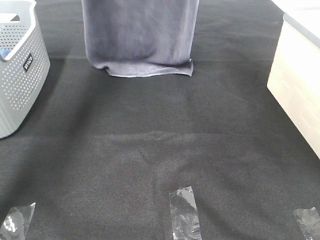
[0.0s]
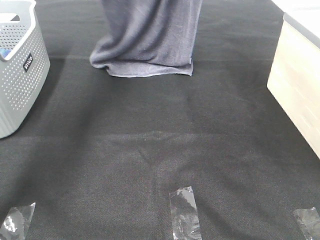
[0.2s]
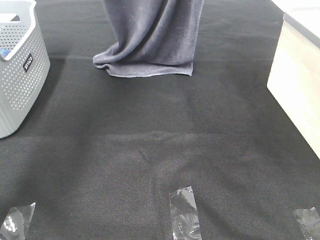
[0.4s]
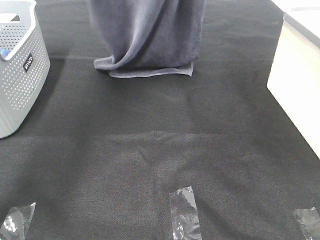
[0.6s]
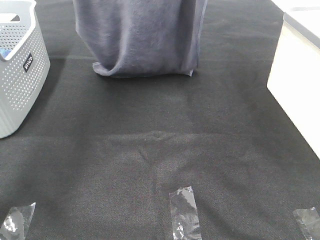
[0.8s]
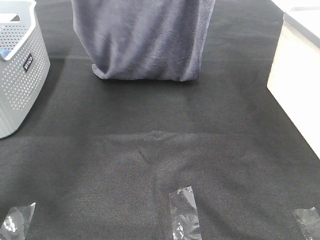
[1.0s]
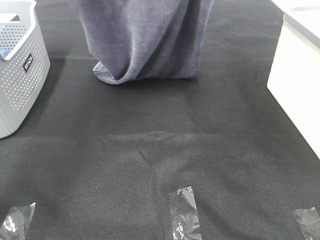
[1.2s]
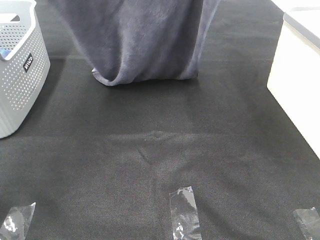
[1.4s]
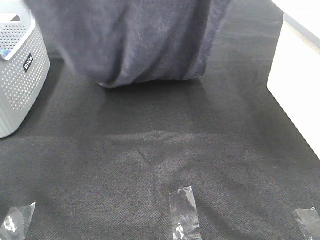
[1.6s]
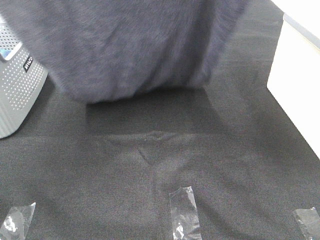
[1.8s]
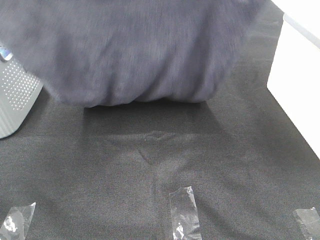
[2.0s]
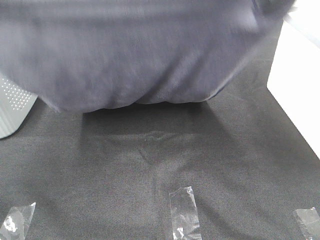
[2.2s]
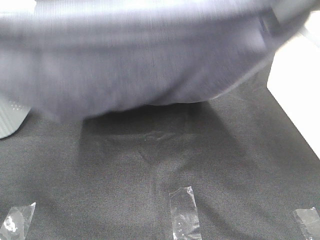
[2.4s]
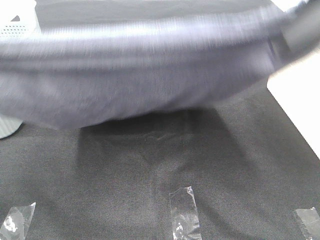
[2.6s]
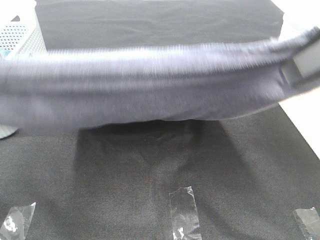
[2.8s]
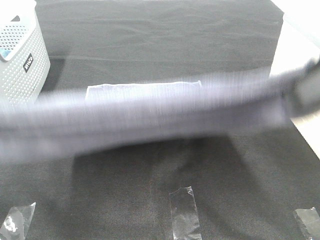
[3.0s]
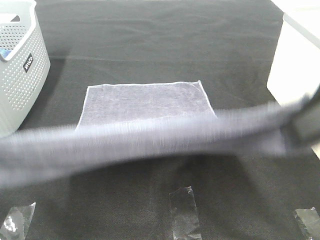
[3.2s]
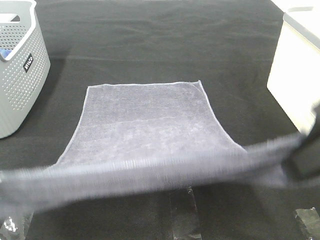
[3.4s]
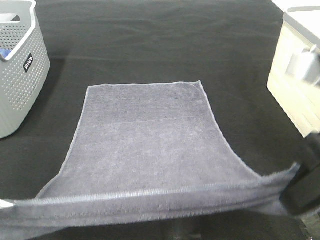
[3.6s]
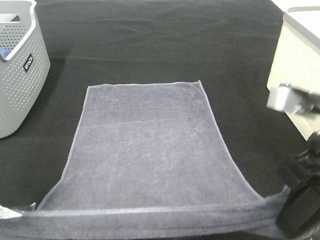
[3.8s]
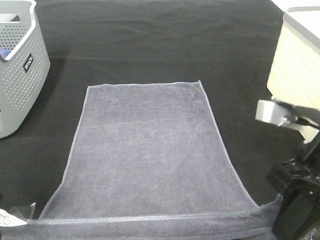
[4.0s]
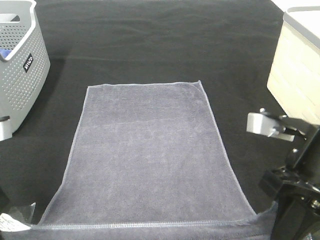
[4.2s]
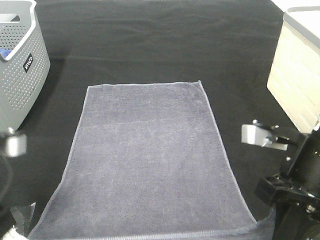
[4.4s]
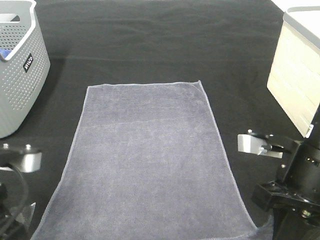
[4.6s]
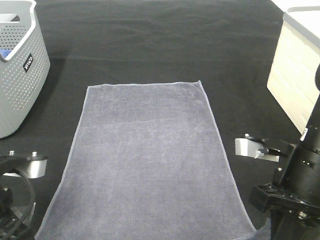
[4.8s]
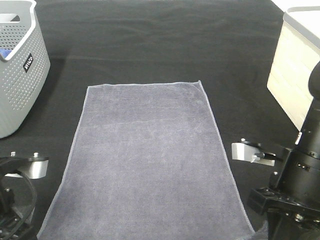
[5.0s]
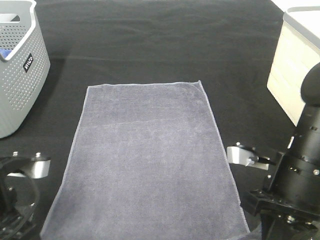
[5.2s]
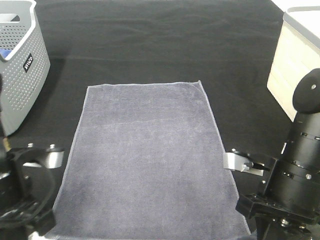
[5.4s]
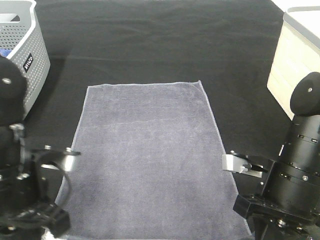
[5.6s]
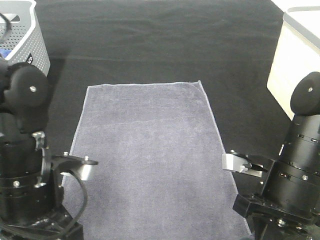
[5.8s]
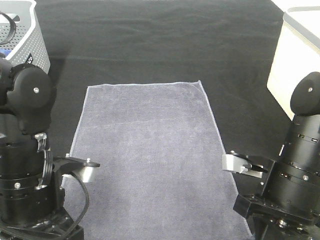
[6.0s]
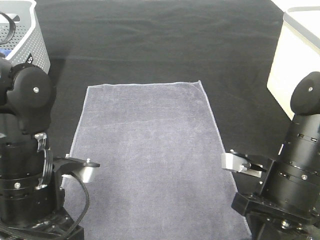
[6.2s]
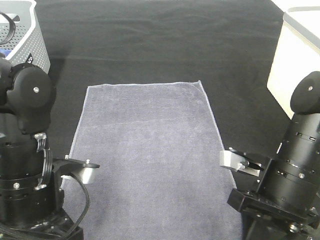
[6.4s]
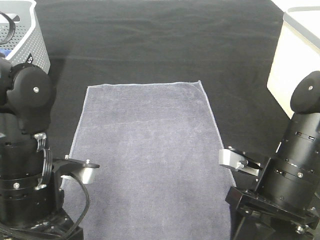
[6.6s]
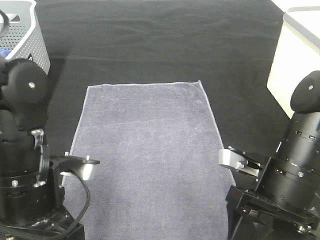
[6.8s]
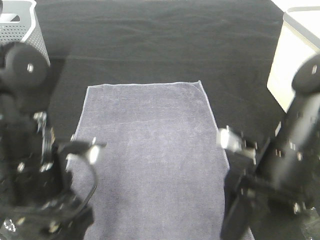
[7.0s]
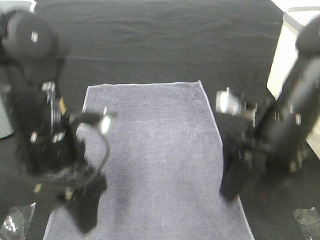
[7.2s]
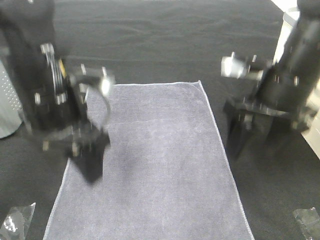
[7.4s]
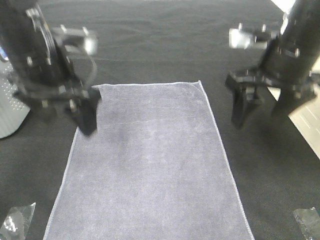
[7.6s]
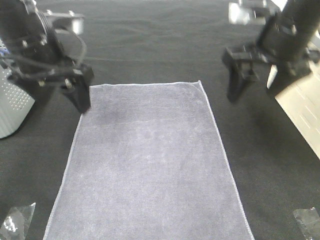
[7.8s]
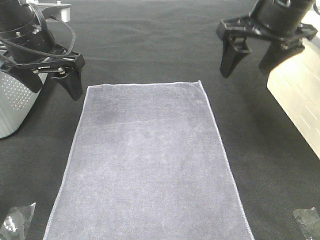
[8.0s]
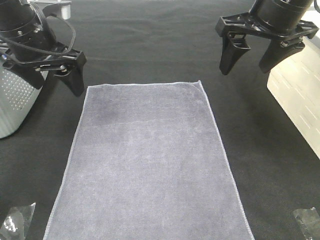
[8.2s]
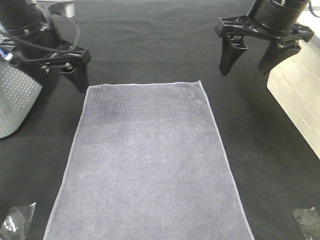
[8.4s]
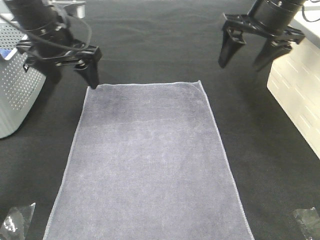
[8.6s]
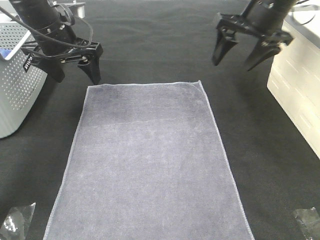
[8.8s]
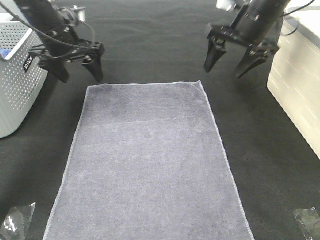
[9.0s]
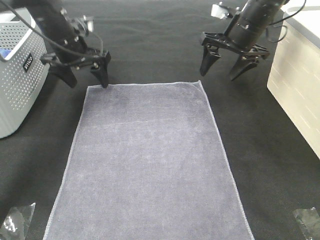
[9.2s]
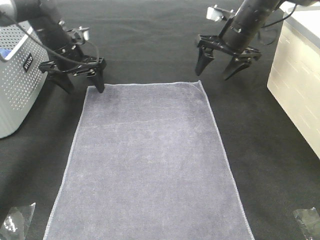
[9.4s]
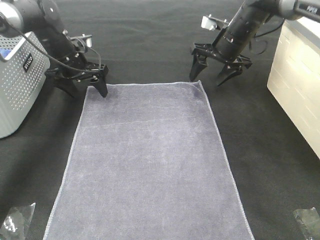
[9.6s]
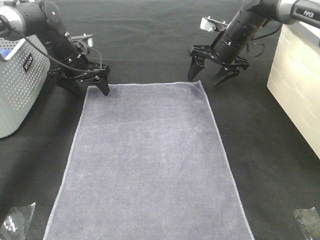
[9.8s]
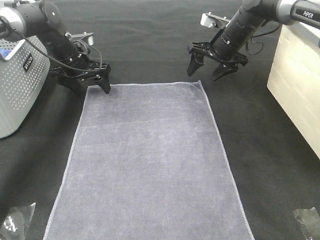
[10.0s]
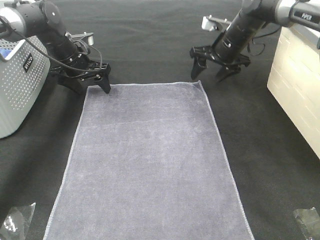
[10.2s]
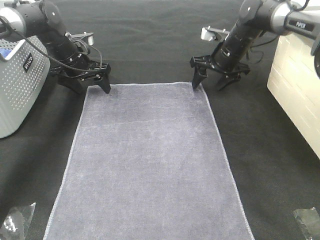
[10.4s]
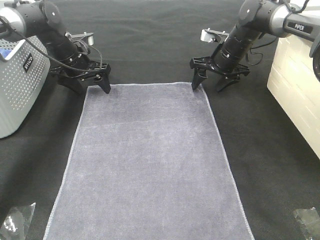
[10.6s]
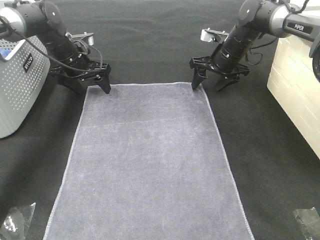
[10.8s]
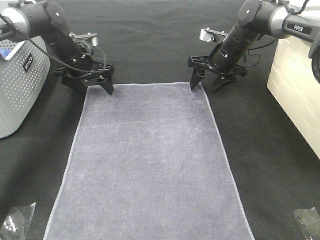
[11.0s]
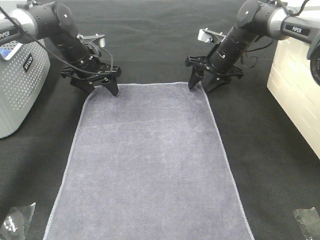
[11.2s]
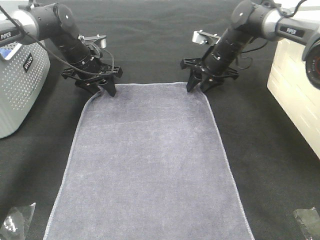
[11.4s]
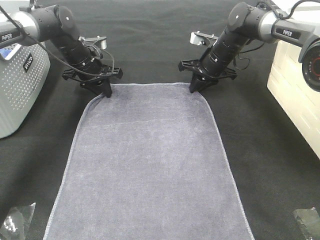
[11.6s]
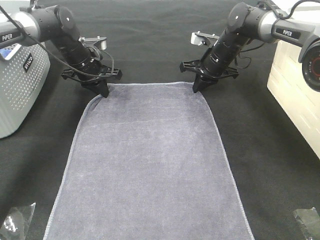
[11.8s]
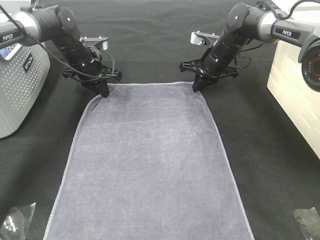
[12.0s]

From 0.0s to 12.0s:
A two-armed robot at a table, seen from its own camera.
Task of the whole recording: Remove the towel and place it.
Step, from 2.0s to 9.2s: Left hand:adjust the gray towel.
Step, from 2.0s to 9.2s: Right hand:adjust the gray towel.
From 0.0s to 1.6s: Both grippers move backward, roughly 20 cm.
From 1.6s to 3.0s: The grippers both shift backward and downward by about 20 cm.
From 3.0s to 4.4s: The grippers both shift downward by about 15 cm.
From 4.4s to 6.0s: The right gripper is displaced downward by approximately 5 cm; the left gripper moves to the right and downward, some 10 cm.
From 6.0s to 7.6s: The left gripper goes roughly 15 cm forward and upward, and opens; the right gripper is displaced upward and forward by about 15 cm, and opens up.
From 7.6s to 9.0s: The grippers both shift forward by some 15 cm.
From 9.0s to 10.4s: Both grippers move downward and forward, some 10 cm.
From 10.4s to 12.0s: The right gripper closes up; the left gripper closes its fingers.

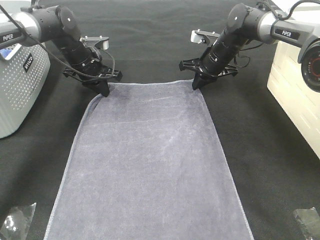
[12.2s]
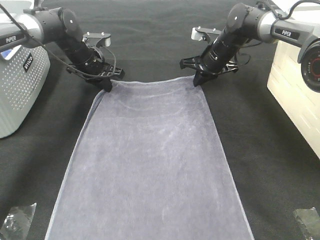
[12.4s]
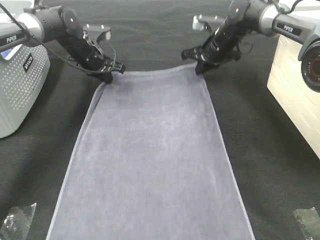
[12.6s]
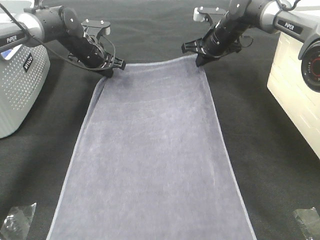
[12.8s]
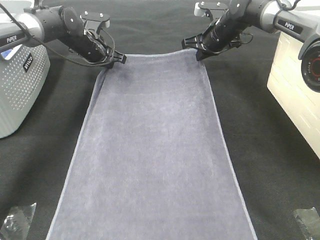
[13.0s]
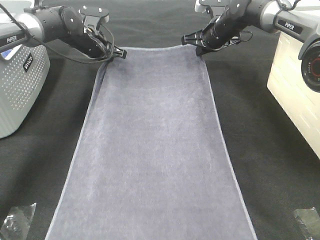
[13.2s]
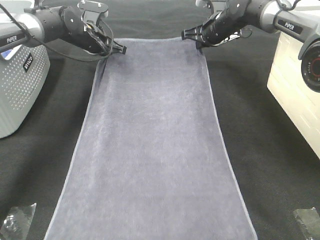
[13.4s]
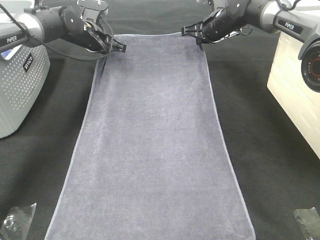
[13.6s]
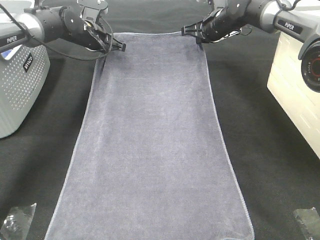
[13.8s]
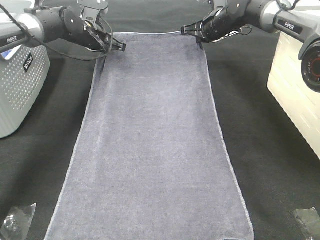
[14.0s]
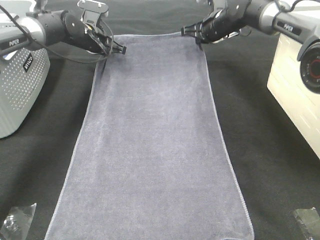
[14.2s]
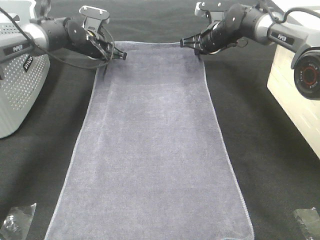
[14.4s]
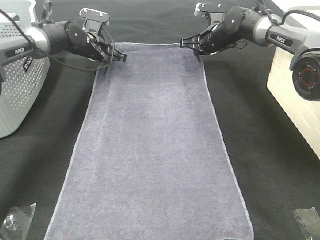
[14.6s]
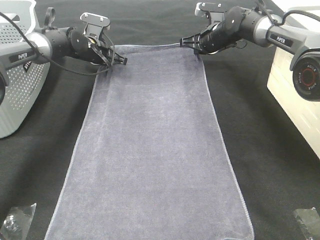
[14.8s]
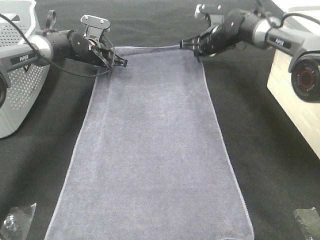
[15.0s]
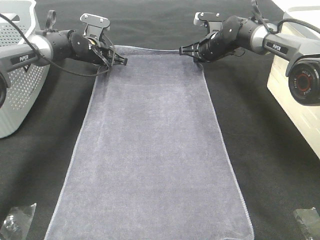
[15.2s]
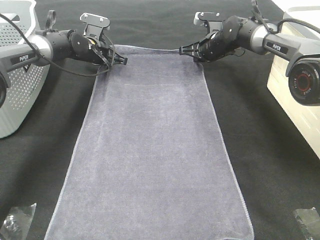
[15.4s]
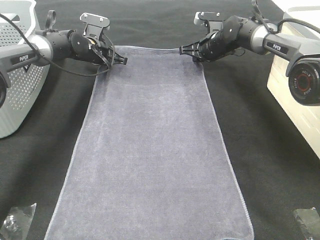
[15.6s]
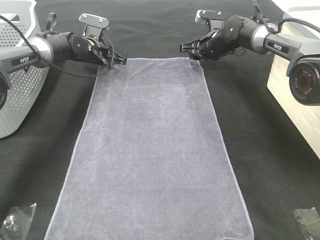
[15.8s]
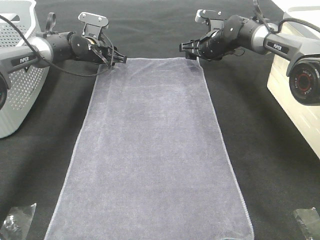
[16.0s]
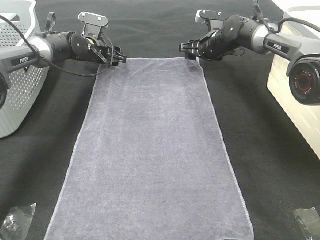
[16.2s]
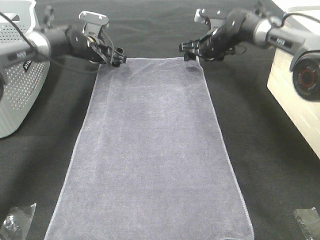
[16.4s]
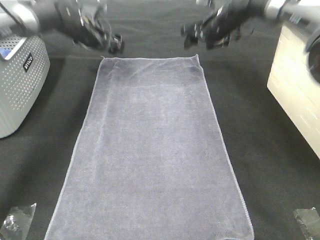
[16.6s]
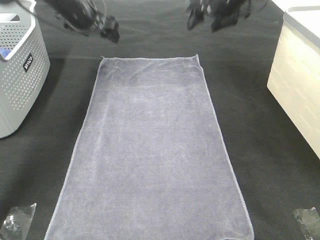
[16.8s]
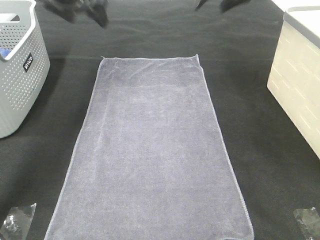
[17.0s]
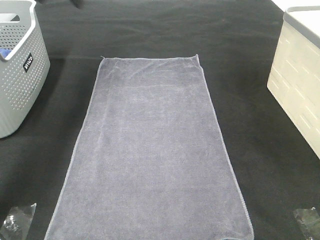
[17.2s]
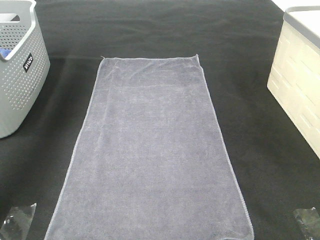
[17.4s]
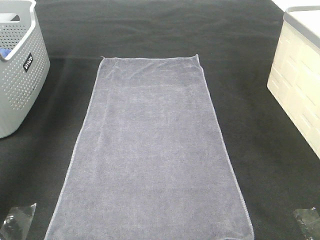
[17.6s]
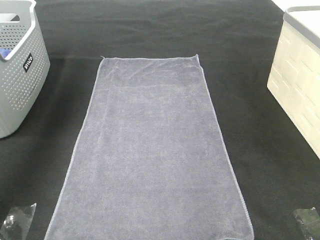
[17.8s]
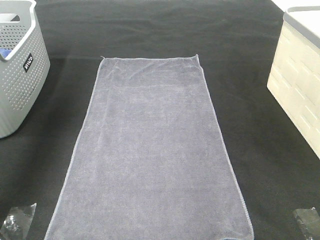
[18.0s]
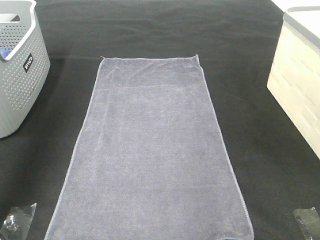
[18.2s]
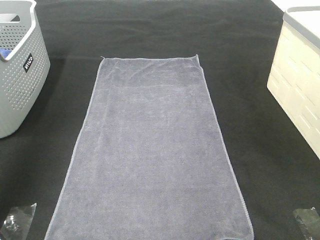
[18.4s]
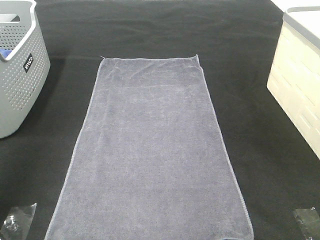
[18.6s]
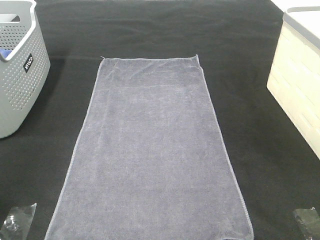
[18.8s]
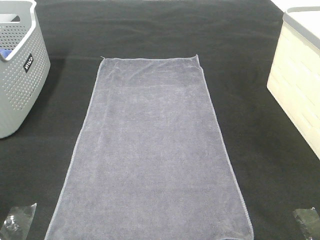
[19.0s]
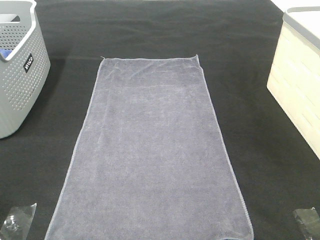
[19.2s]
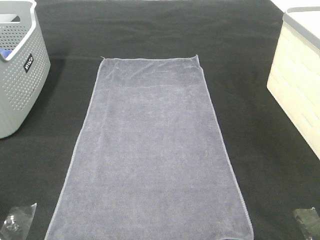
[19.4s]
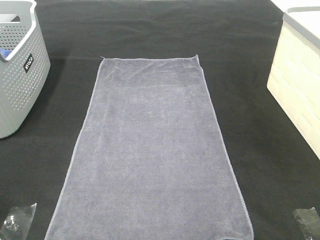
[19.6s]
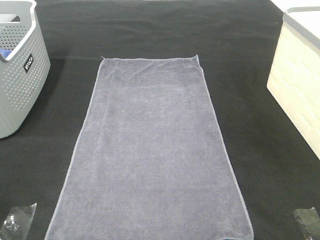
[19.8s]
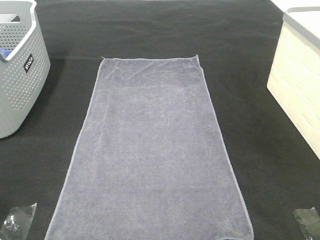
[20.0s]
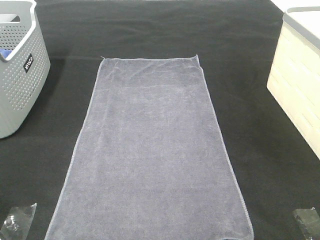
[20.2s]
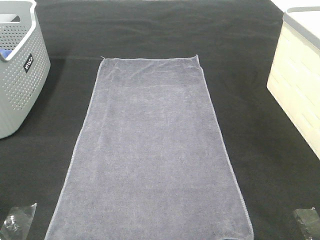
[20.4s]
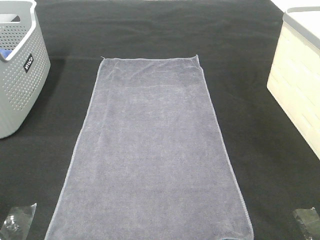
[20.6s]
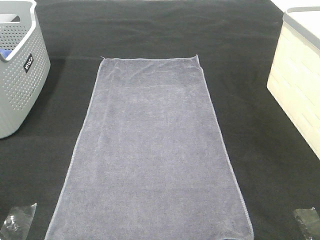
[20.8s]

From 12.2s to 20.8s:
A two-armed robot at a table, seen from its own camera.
Task of the whole recording: Remove the towel and place it.
From 12.2s to 13.6s: The right gripper shifts some 5 cm upward. Meanwhile the left gripper moves about 5 cm.
From 13.6s to 15.0s: The grippers make only small movements.
From 15.0s to 16.6s: The two grippers go about 5 cm upward. The left gripper opens its fingers, while the right gripper opens.
From 16.6s to 18.0s: The right gripper heads backward and upward, covering about 35 cm; the left gripper heads upward, backward and to the left, covering approximately 35 cm.
From 18.0s to 19.4s: The right gripper is displaced backward and downward by about 35 cm. Meanwhile the left gripper travels backward by some 35 cm.

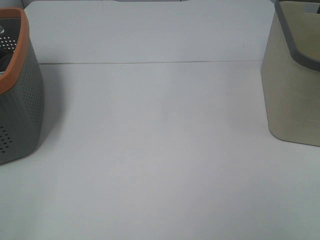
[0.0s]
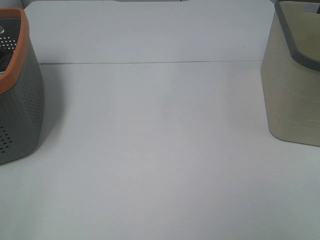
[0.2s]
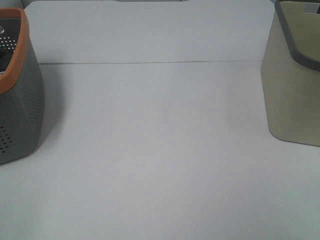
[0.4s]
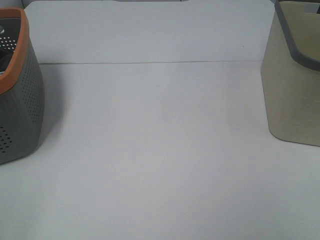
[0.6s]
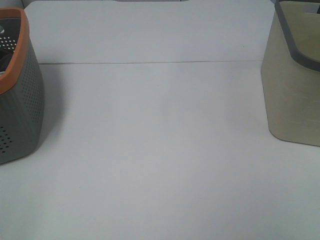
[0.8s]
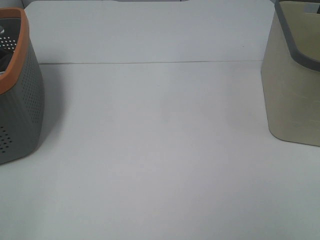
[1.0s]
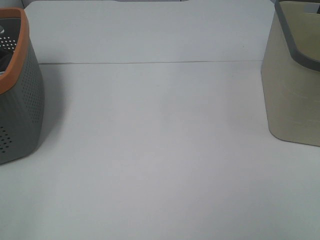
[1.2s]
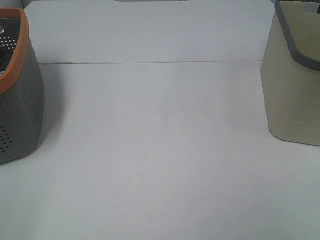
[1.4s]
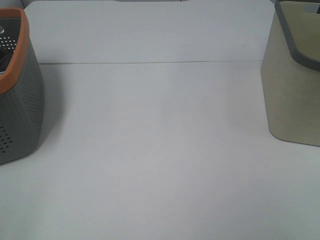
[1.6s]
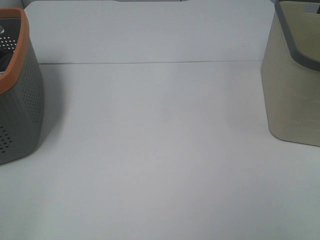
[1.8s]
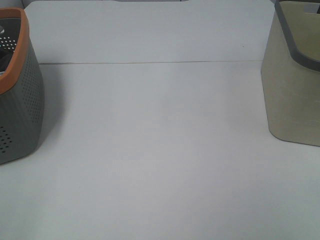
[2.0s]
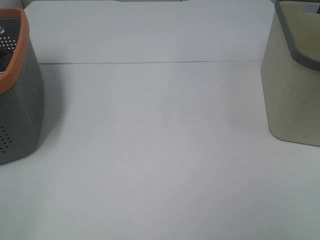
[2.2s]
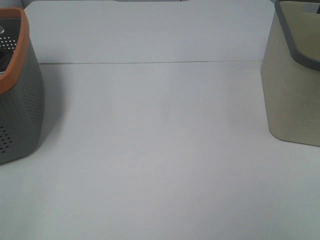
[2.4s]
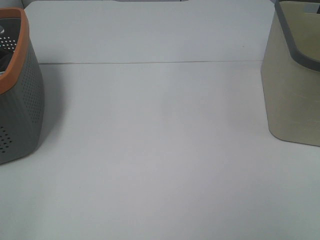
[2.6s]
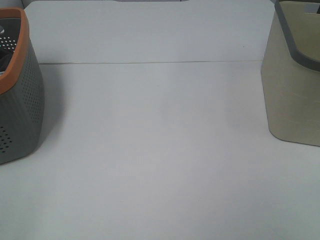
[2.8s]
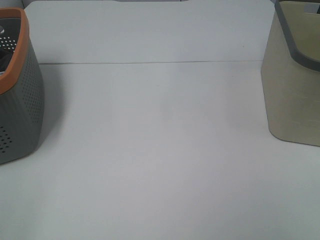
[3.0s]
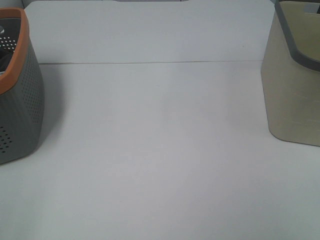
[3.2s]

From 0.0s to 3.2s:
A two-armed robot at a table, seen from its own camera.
Task of the whole recording: Remove the towel and place it.
From 0.0s to 3.2s: Neither gripper changes place.
